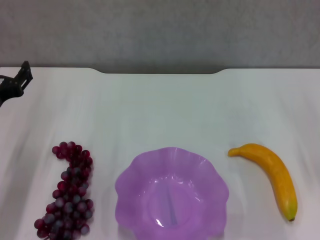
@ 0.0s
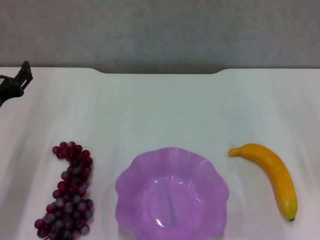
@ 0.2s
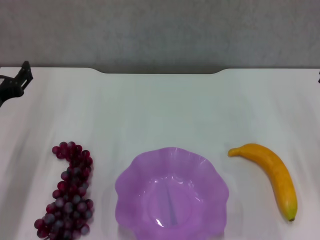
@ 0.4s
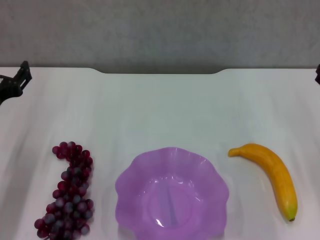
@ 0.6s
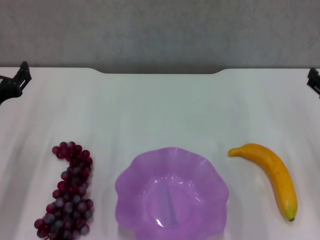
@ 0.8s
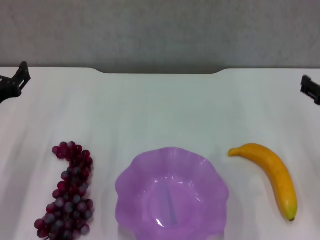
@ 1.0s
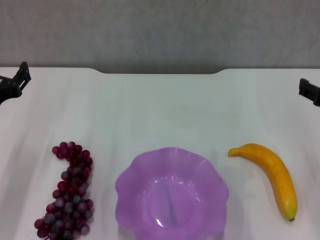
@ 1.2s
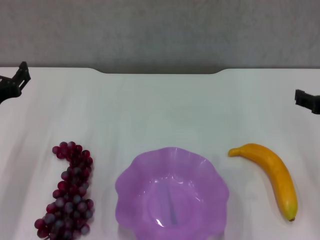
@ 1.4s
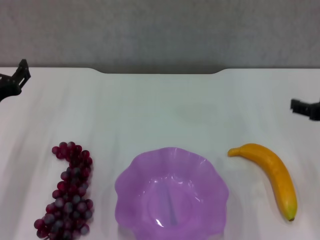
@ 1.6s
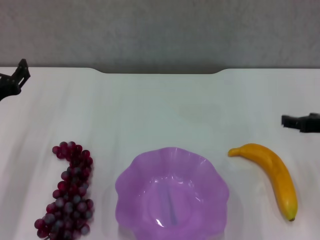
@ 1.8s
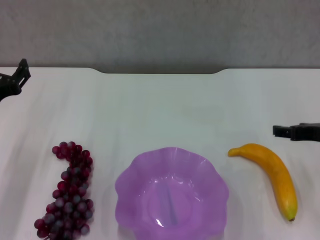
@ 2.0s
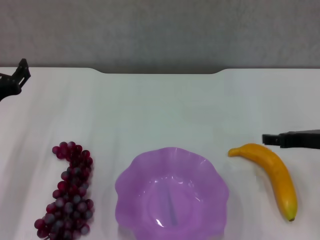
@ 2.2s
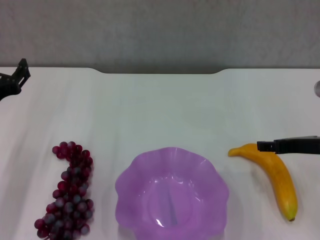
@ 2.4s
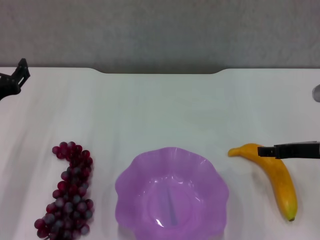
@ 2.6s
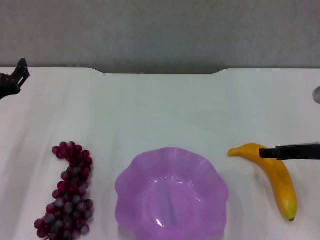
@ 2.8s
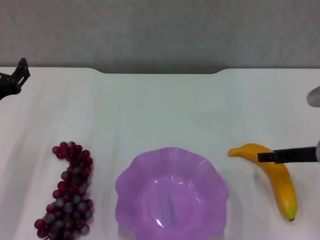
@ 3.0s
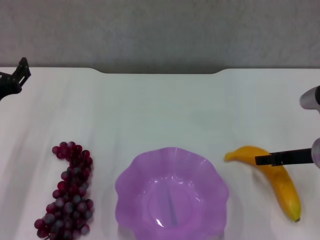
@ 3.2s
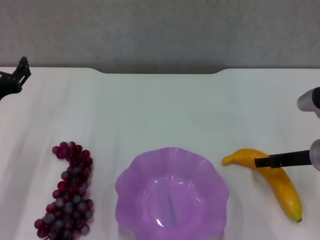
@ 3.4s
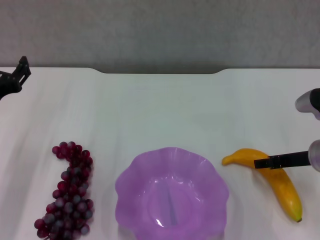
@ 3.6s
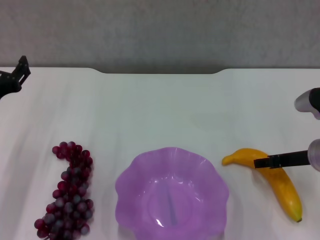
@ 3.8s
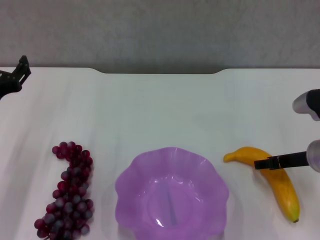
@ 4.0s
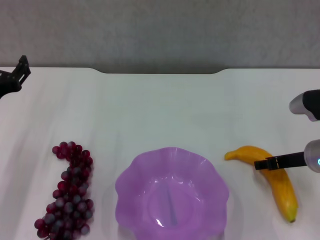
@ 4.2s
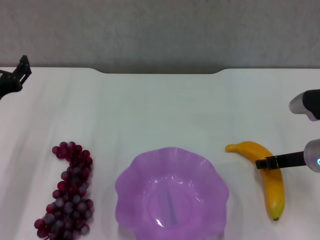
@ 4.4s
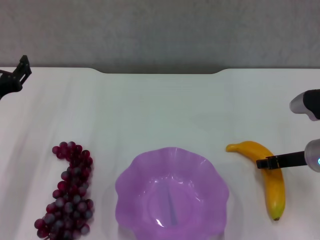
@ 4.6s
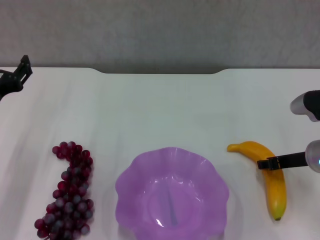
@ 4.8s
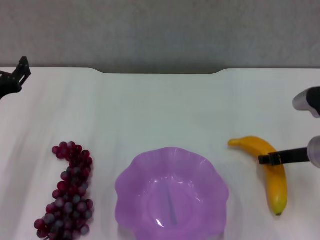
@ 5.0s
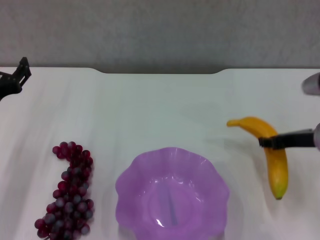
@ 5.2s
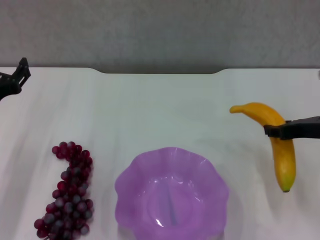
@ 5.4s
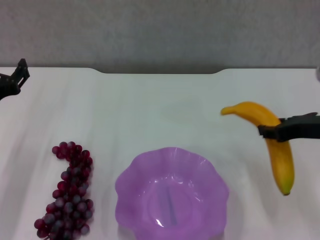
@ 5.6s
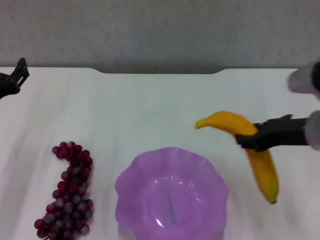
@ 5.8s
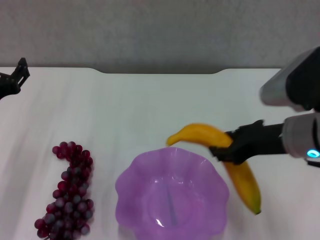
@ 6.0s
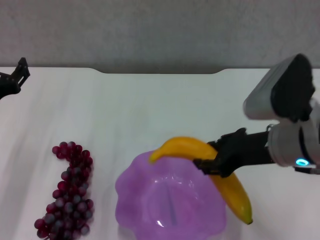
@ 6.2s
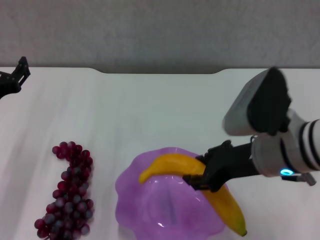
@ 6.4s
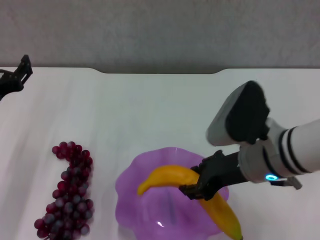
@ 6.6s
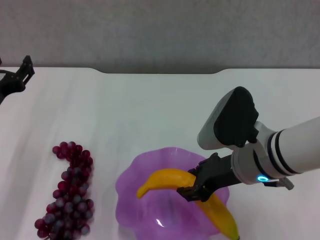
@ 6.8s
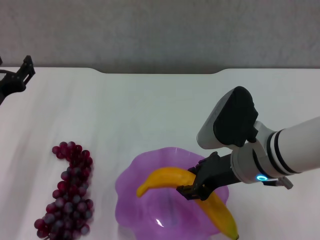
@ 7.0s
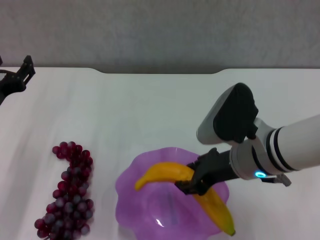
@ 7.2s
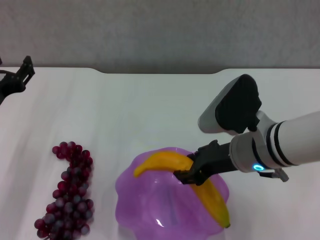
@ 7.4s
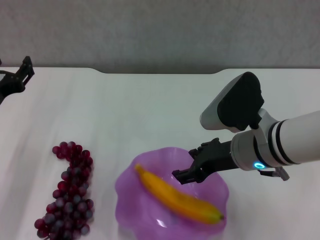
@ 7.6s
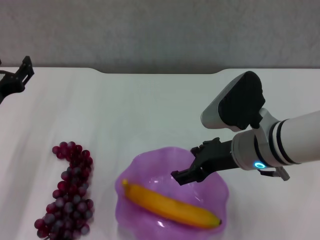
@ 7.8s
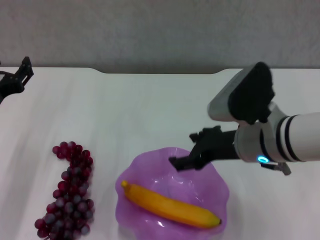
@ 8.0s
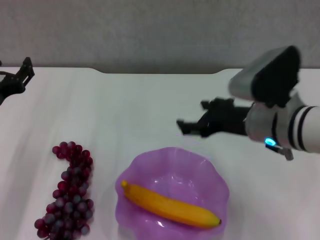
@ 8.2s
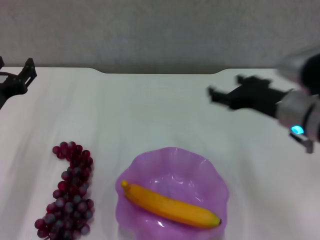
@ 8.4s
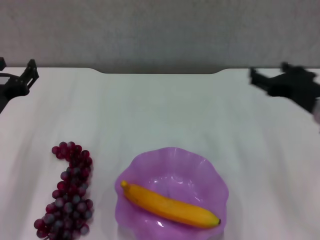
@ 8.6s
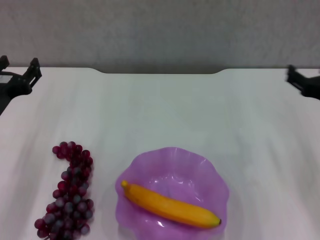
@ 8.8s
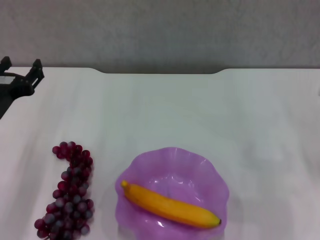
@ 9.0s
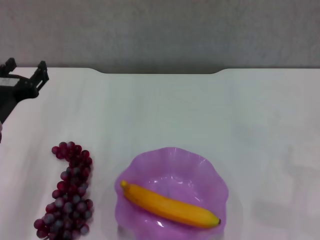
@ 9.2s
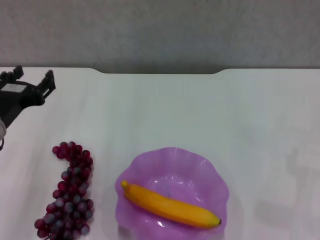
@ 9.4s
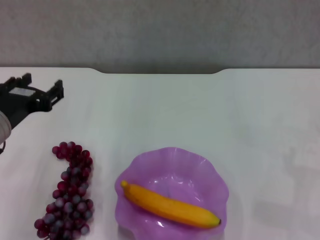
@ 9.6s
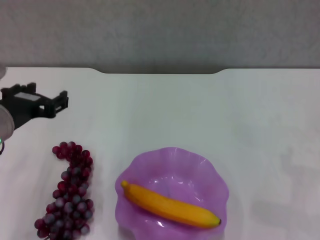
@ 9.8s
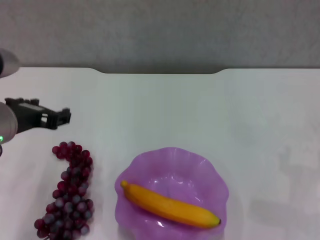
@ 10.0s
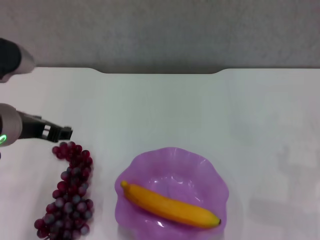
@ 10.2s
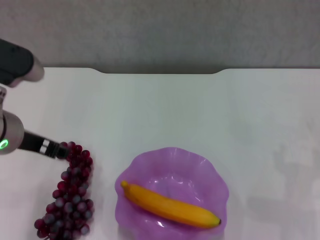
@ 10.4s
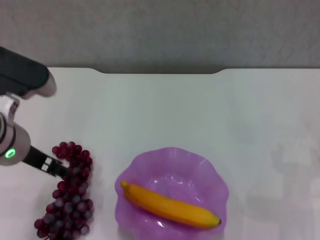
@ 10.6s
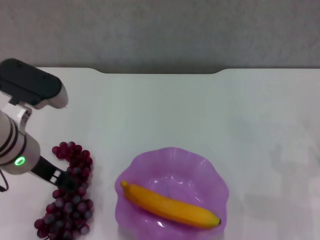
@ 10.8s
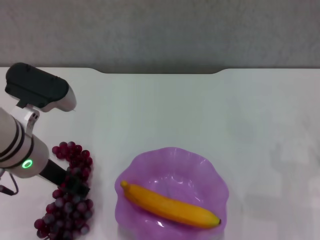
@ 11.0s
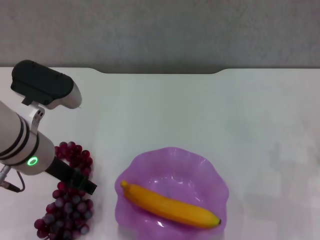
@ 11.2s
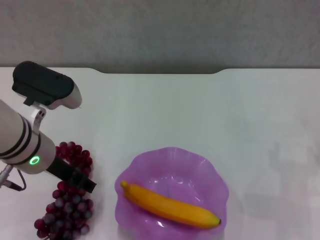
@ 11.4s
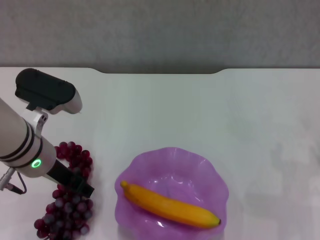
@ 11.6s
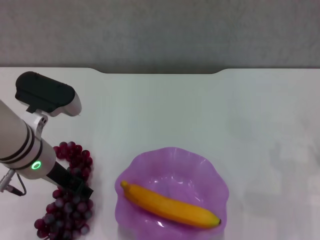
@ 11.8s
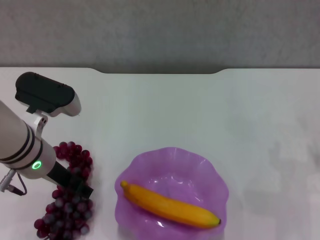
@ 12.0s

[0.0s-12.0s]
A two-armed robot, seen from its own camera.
Step, 0.0s to 4.8s: Grasp the banana with right gripper.
Step, 5.0s to 7.6s: Place the banana in the purple plate with right gripper.
0.0s to 1.6s: The right gripper travels upward by approximately 5 cm.
1.6s to 3.0s: The right gripper goes approximately 10 cm downward.
3.0s to 4.4s: The grippers make only small movements.
4.4s to 6.0s: The right gripper moves upward and to the left, some 10 cm, and closes.
6.0s to 7.6s: The right gripper travels to the left by approximately 5 cm.
7.6s to 9.0s: The right gripper heads to the right, covering approximately 20 cm, and opens up.
9.0s to 10.4s: The left gripper is displaced upward and to the right by roughly 10 cm.
10.4s to 12.0s: The left gripper shifts some 5 cm downward.

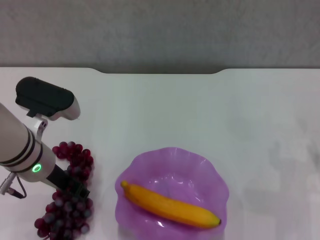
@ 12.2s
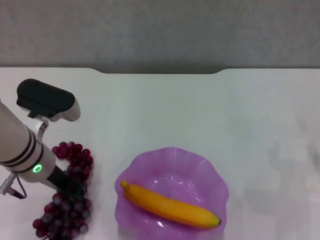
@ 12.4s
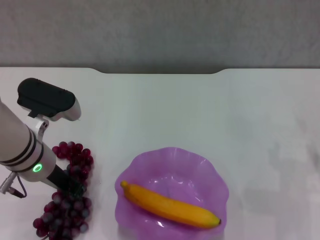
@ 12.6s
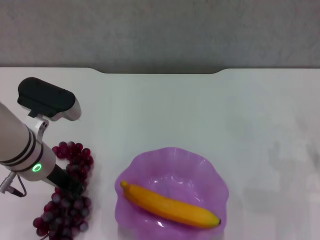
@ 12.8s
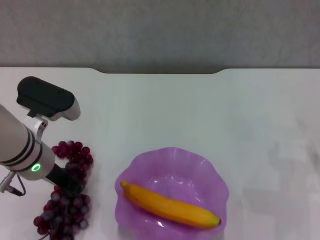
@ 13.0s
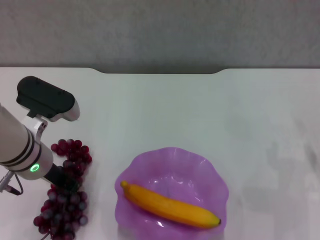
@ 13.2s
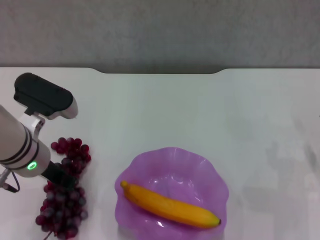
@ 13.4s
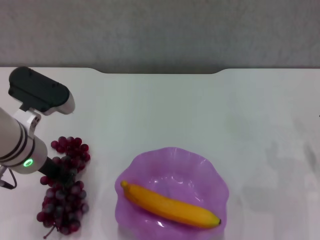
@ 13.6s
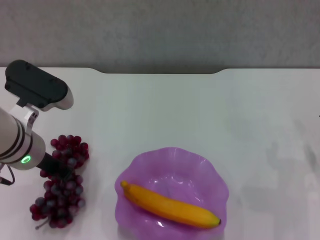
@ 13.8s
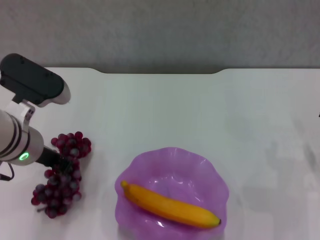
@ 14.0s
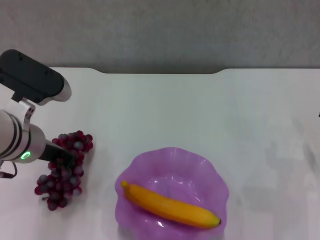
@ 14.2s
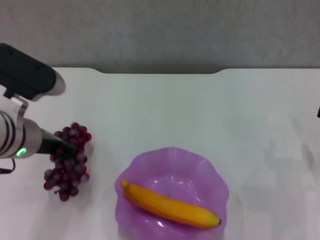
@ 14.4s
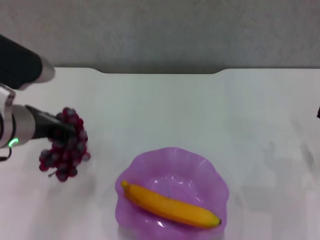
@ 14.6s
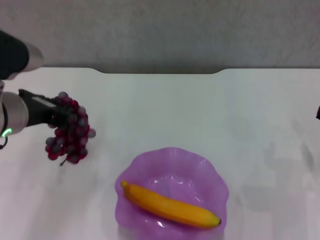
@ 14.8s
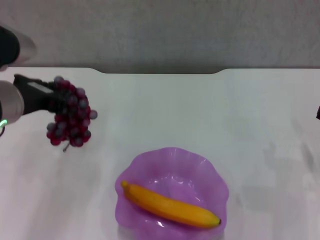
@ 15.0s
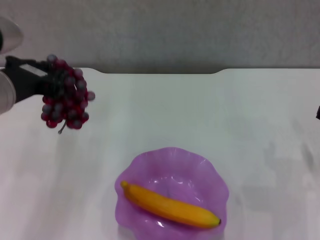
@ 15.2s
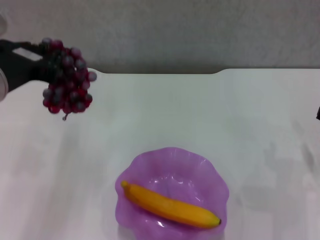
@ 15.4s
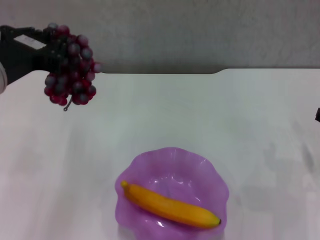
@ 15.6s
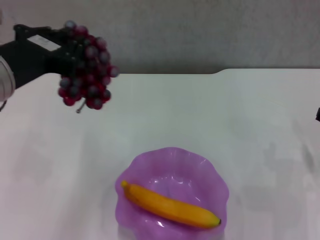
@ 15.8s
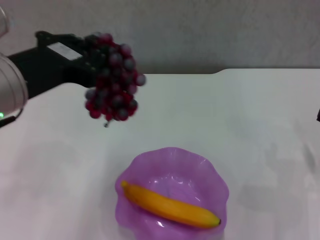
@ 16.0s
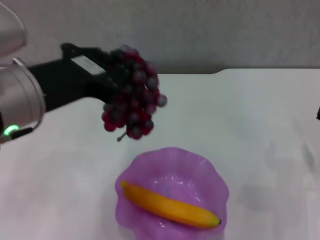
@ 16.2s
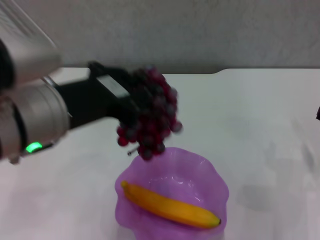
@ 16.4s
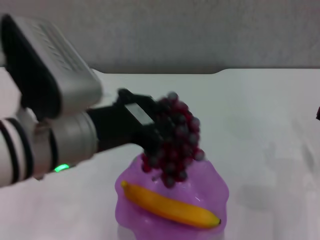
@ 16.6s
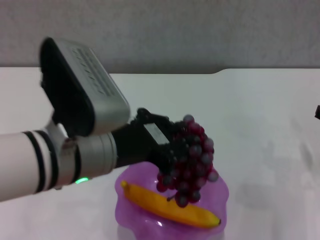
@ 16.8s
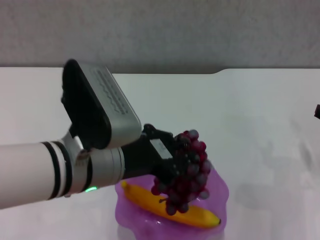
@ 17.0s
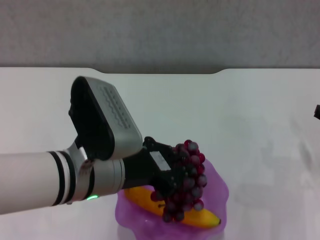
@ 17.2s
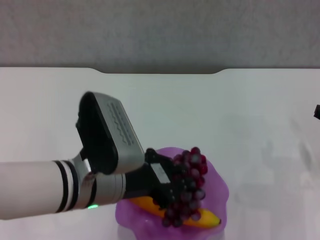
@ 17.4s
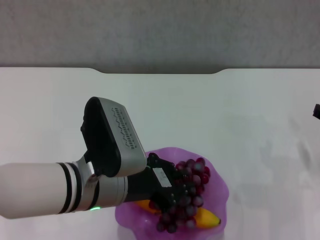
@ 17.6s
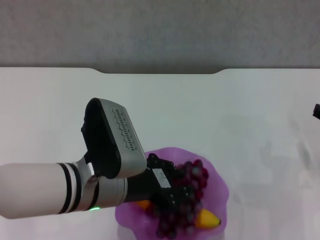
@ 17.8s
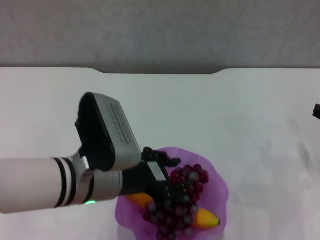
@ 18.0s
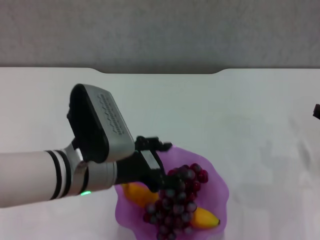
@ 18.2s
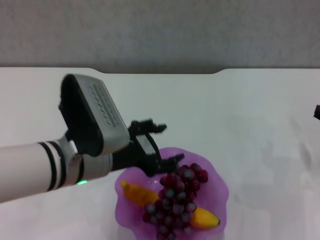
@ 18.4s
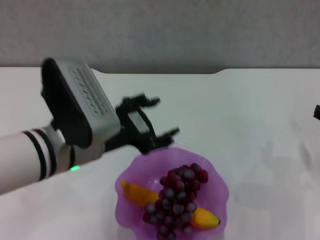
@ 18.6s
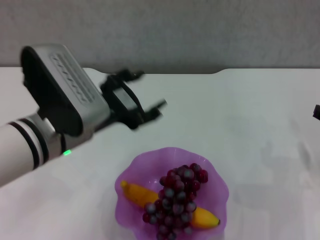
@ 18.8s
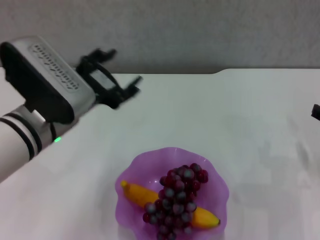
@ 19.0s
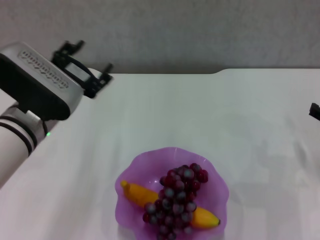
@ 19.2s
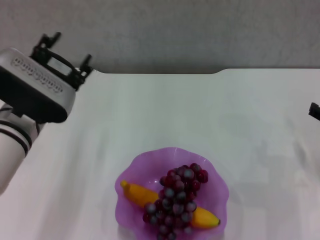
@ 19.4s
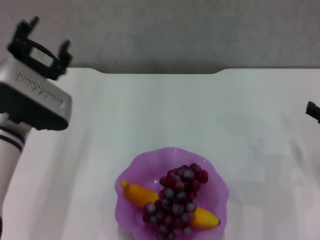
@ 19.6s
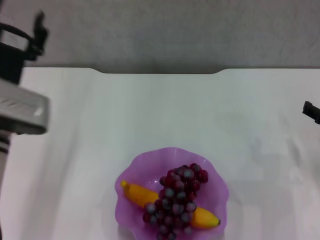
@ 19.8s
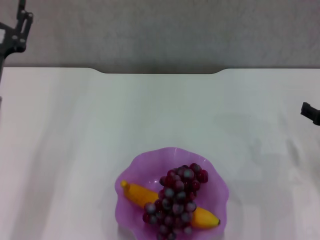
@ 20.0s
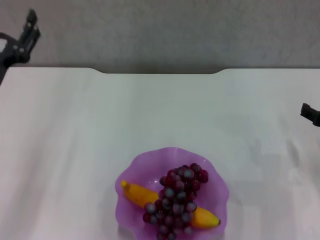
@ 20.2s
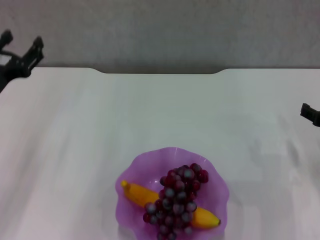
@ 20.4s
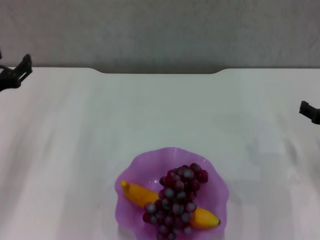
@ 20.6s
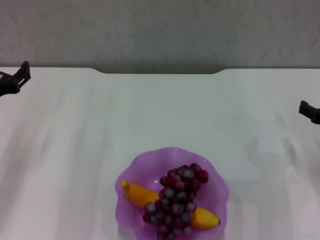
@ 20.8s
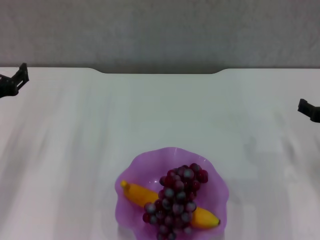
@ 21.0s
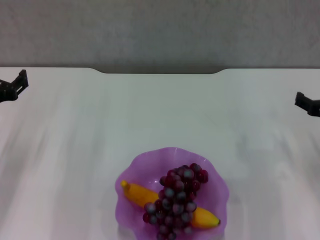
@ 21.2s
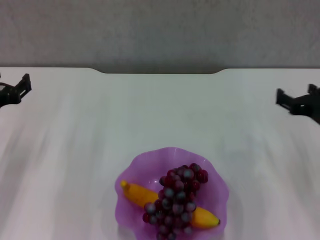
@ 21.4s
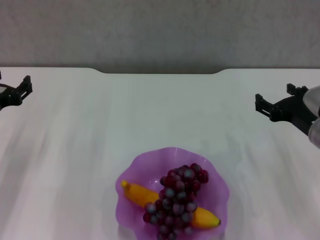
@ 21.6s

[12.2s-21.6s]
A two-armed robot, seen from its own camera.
Step, 13.4s to 18.2s: Place the grape in the purple plate with left gripper.
12.2s to 13.8s: The left gripper closes up.
13.8s to 15.4s: The left gripper moves upward, approximately 10 cm.
15.4s to 17.0s: The left gripper goes some 10 cm to the right and downward.
17.0s to 18.4s: The left gripper opens its fingers.
18.4s to 20.0s: The left gripper moves to the left, roughly 10 cm.
20.0s to 21.6s: The grippers both shift to the left by about 5 cm.
